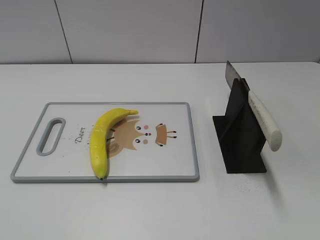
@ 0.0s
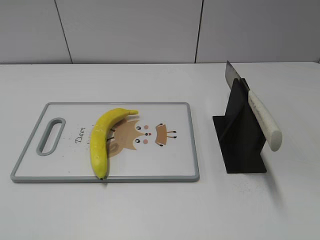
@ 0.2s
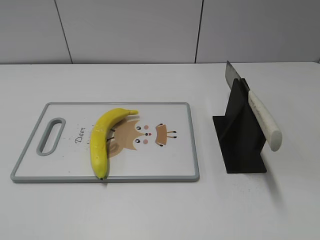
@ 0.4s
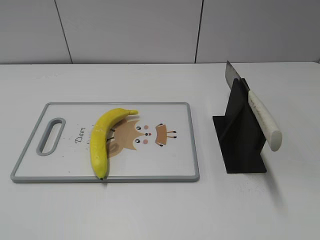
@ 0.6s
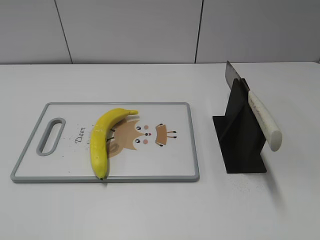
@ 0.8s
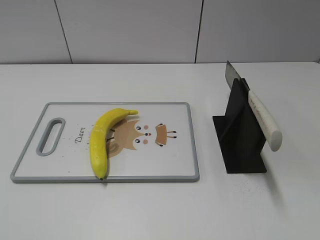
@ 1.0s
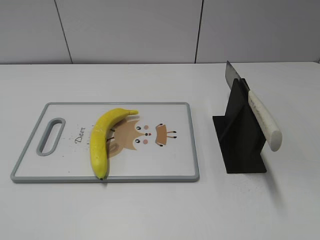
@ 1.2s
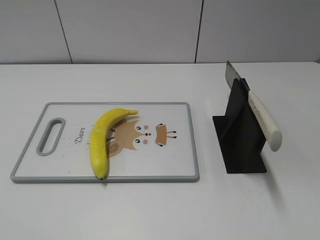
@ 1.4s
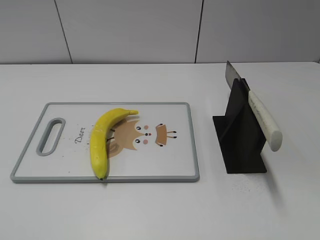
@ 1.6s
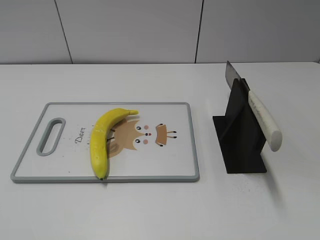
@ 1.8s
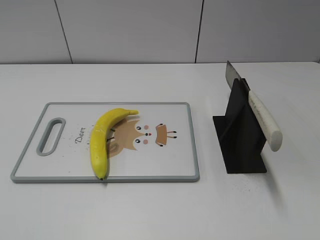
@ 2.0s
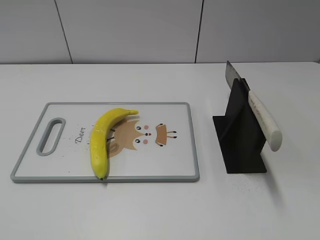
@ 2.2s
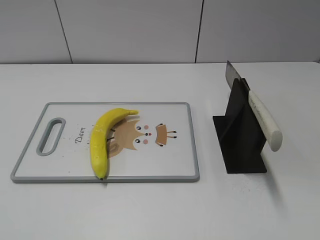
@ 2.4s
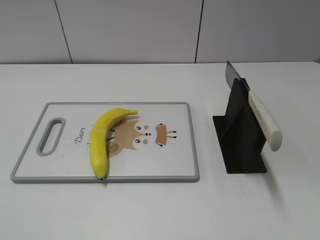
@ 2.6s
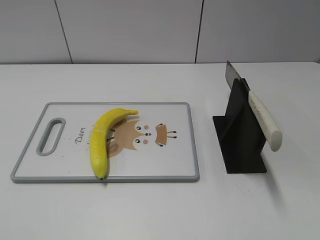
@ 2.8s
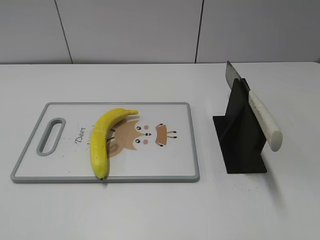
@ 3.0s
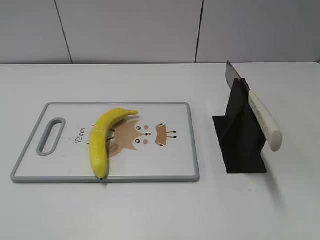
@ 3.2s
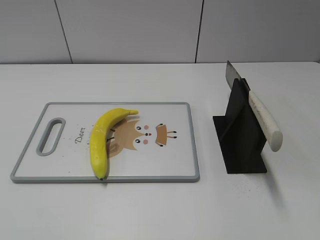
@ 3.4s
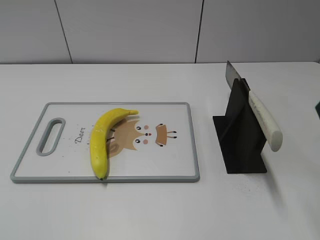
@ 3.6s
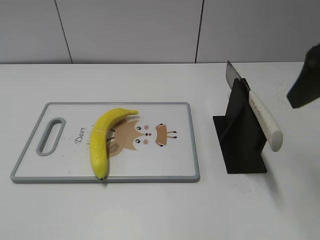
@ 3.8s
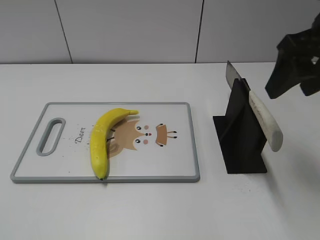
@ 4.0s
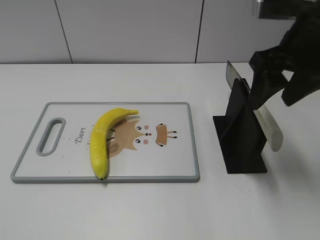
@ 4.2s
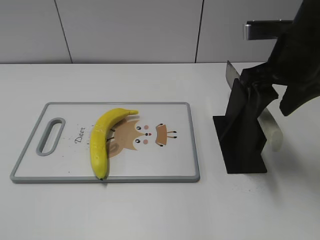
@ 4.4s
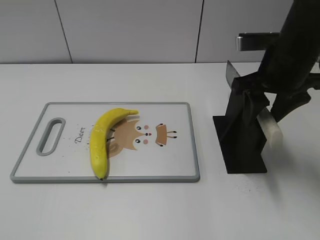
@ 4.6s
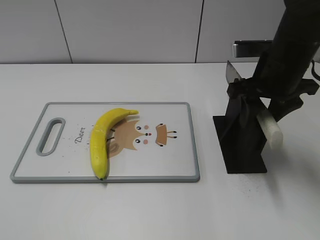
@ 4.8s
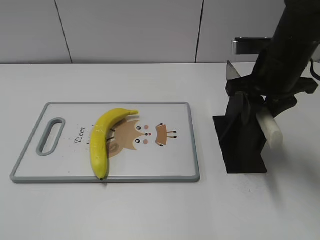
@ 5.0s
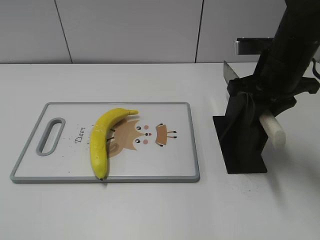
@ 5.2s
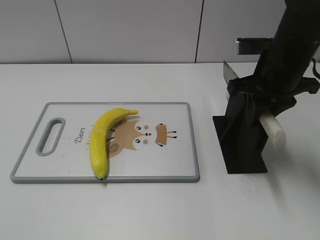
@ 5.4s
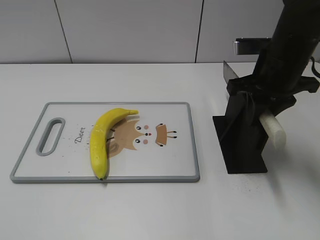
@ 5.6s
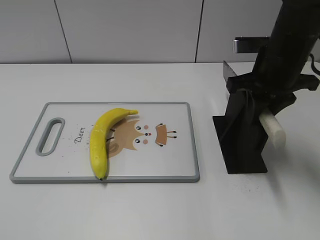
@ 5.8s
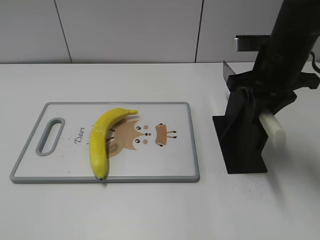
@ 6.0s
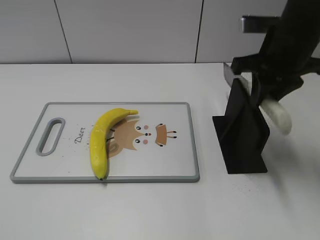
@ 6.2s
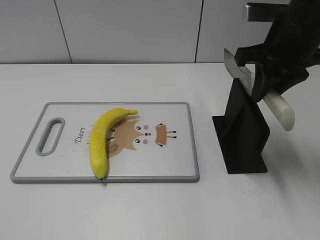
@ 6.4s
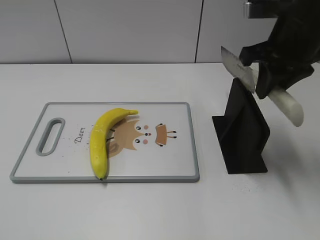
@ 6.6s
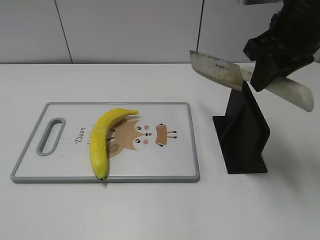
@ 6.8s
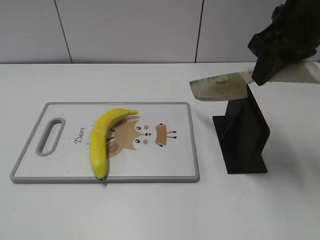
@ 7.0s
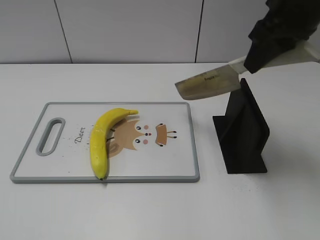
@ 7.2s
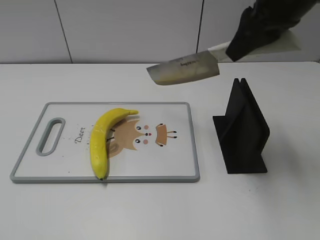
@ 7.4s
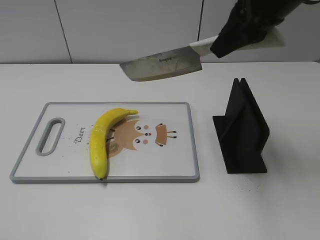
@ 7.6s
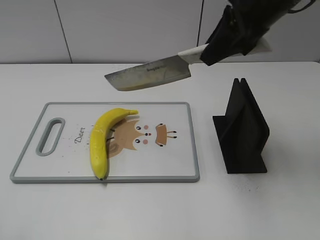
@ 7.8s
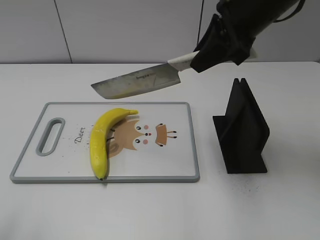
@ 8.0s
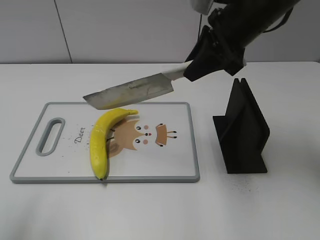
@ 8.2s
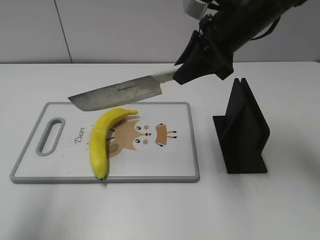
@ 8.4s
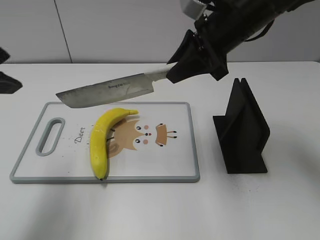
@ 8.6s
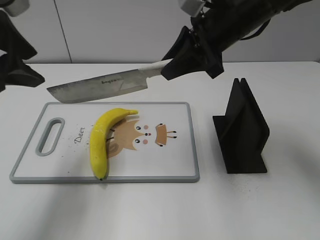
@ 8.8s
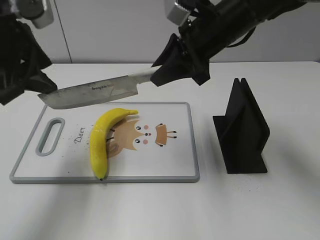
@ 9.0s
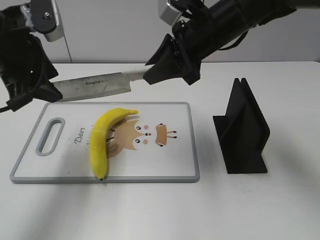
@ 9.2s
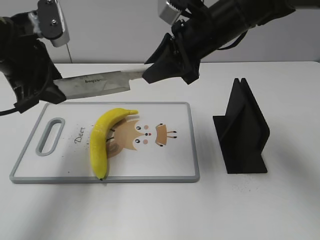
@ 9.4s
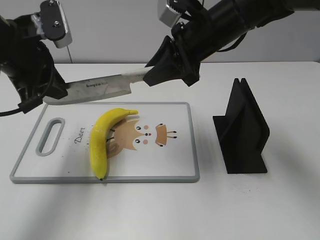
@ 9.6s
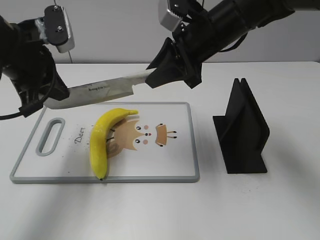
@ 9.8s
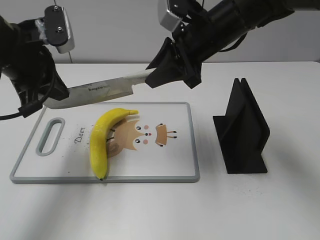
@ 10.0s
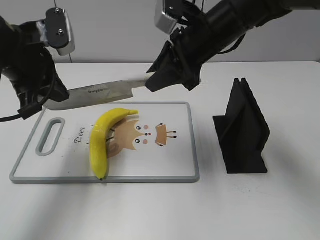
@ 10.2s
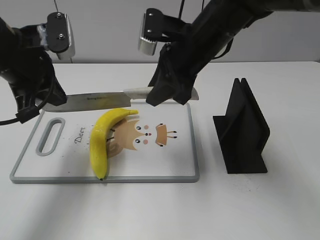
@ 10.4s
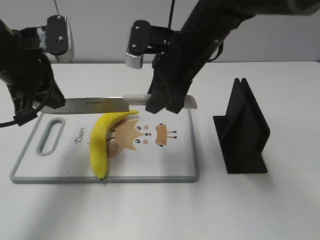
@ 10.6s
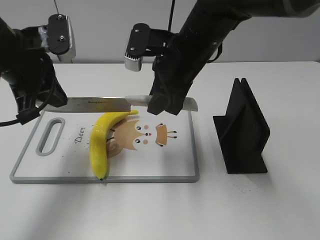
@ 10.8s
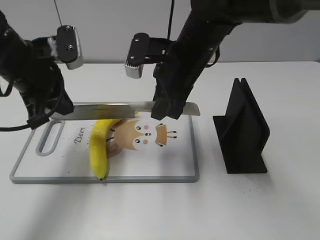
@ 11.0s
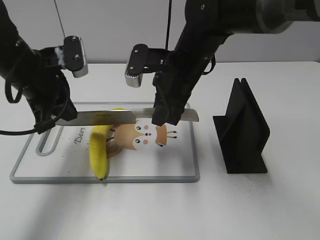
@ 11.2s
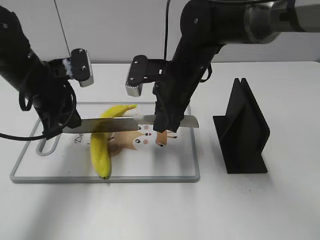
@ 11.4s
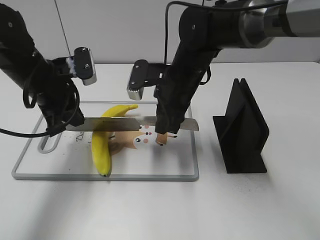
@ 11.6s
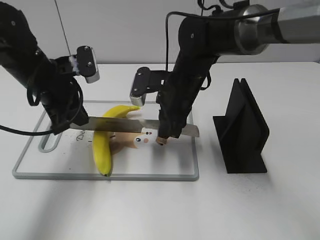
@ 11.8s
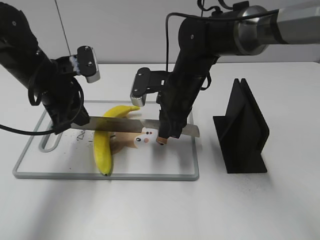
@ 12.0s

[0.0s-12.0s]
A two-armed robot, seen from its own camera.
Task of the whole recording: cut plastic banana.
Step, 0.0s to 6.2s: Grab the knife handle with your right hand.
3.0s to 4.4s: The right gripper travels forward and to the left by roughly 25 cm.
4.4s to 6.0s: The right gripper closes its fingers.
6.0s to 7.6s: The left gripper changes place by roughly 5 cm. Meanwhile the right gripper goes roughly 10 cm upward.
7.6s to 9.0s: The left gripper moves forward, some 25 cm. The right gripper goes some 10 cm downward and to the left.
9.0s to 10.4s: The left gripper moves about 5 cm, and closes up.
10.4s to 12.0s: The grippers both shift downward by about 10 cm.

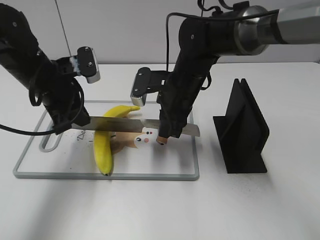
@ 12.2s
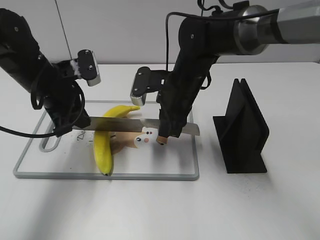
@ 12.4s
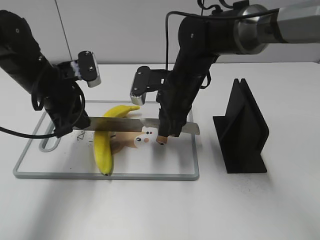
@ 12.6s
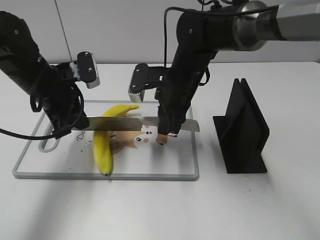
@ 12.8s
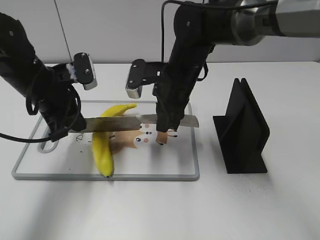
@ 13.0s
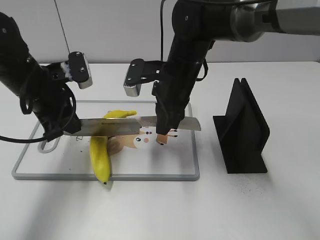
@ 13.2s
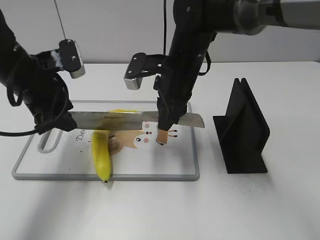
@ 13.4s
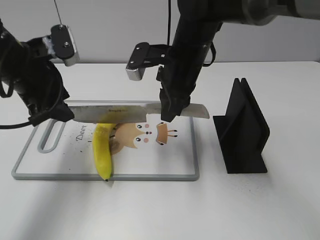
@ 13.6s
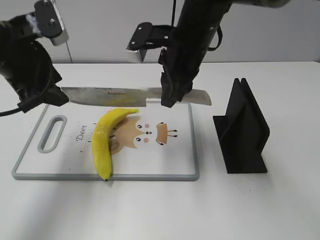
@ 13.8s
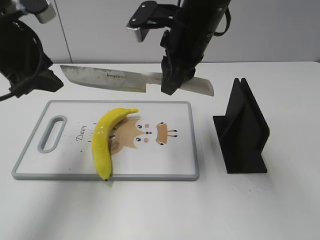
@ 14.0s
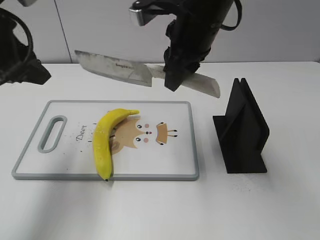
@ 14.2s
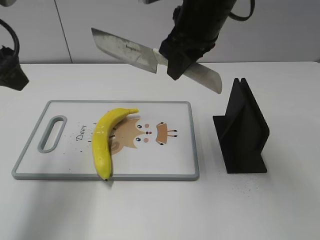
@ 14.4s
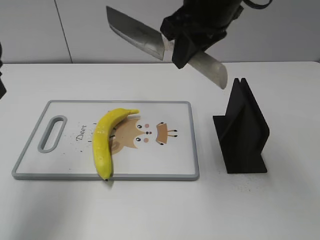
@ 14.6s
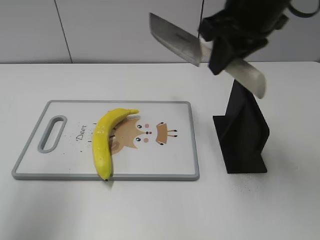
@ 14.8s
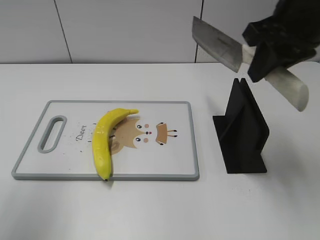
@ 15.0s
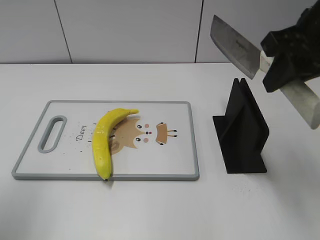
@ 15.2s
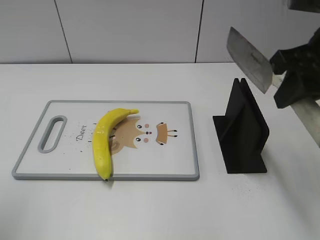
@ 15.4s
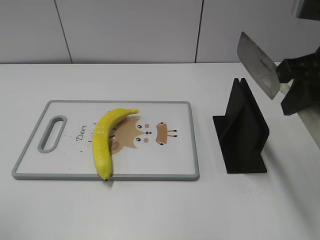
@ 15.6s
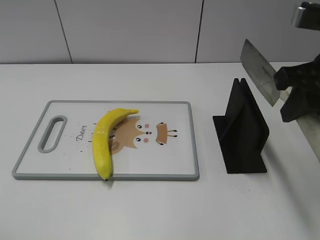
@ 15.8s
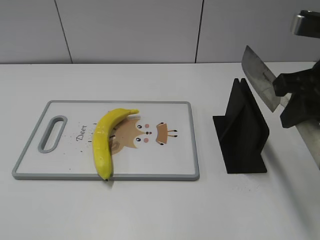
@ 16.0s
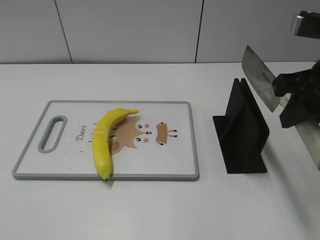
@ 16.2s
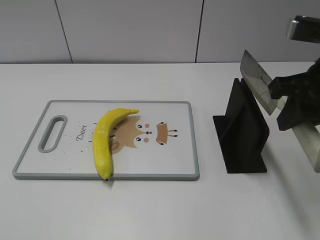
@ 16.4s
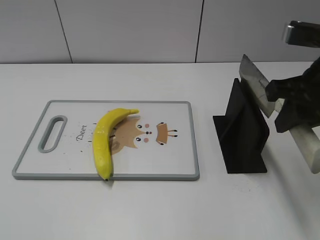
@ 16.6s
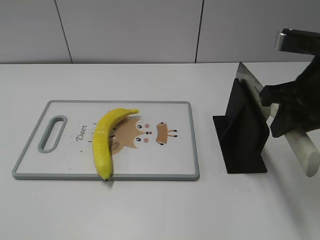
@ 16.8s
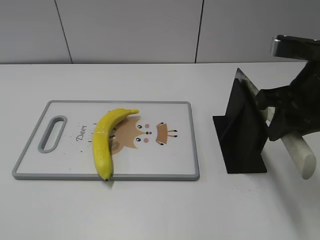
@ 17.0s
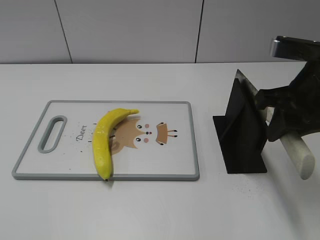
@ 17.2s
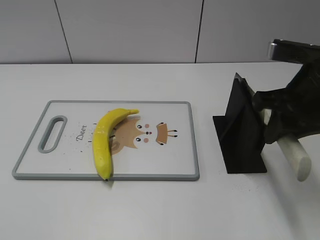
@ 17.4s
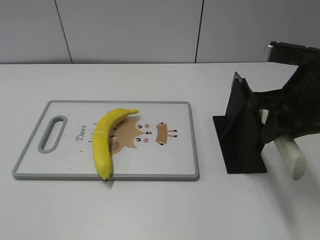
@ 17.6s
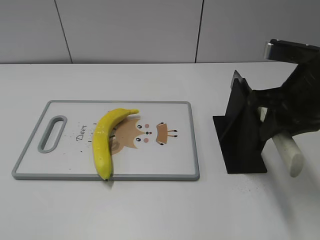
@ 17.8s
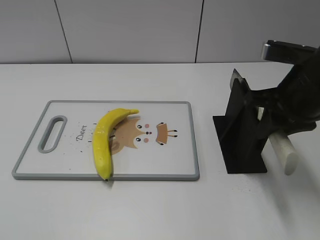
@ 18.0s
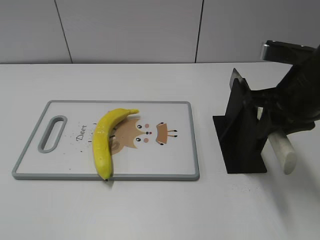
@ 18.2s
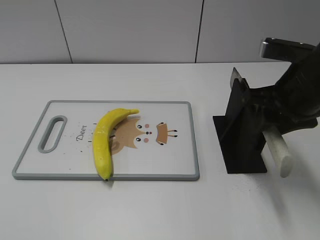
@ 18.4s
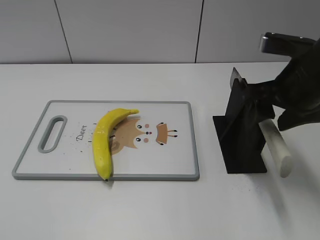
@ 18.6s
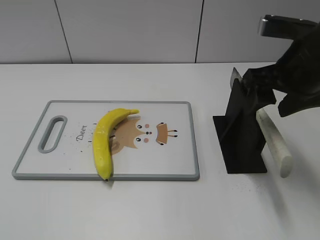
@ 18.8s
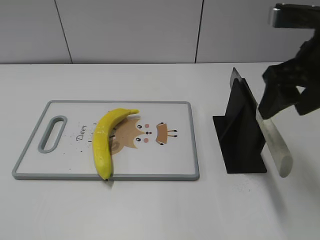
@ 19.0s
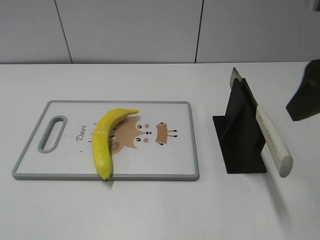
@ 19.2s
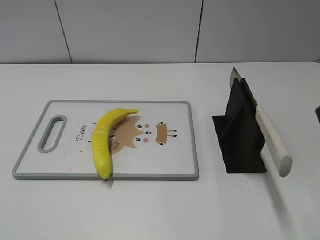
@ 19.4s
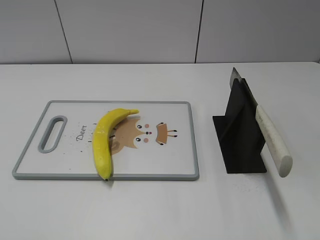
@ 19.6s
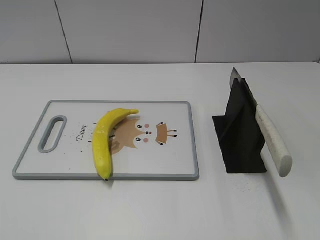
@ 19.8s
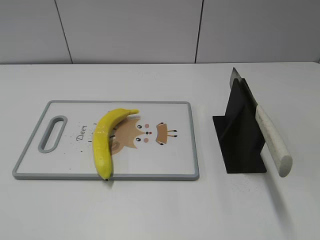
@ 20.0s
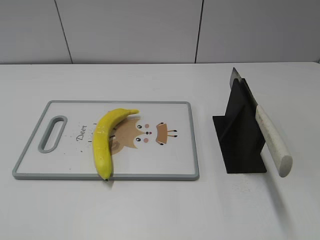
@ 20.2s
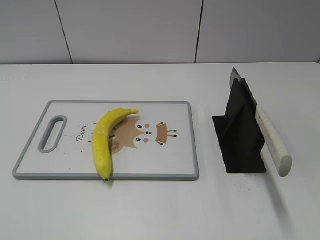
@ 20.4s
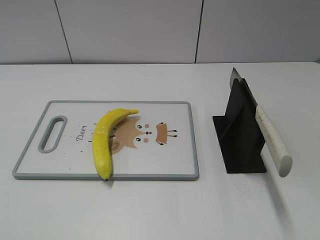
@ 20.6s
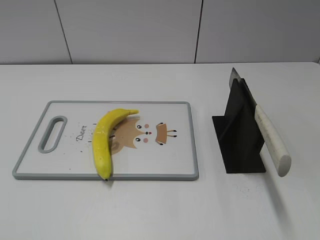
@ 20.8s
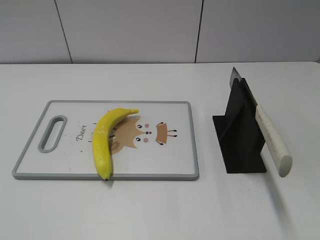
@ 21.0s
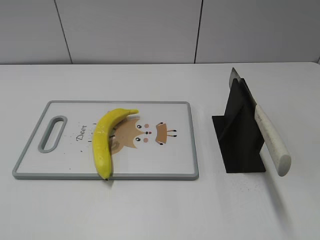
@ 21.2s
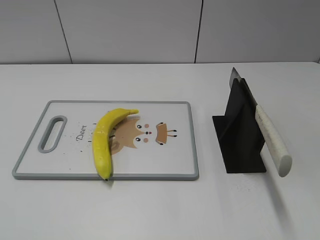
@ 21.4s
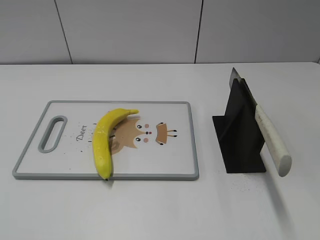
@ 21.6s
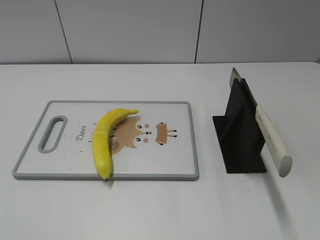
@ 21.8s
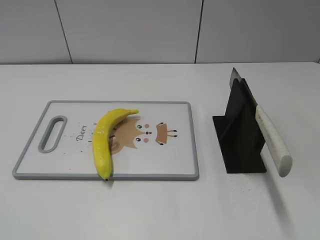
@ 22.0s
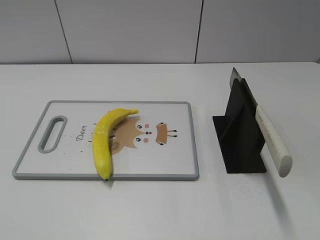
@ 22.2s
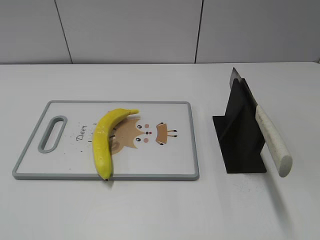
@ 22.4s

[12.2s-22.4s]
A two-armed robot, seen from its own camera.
Task of the whole recording: cut plastic banana.
Step, 12.4s to 16.4s: Cut the banana with your right hand.
Step, 16.8s to 17.2s: Lift the knife with your right hand.
Step, 17.6s to 22.4s: Place the knife on the storage rack with your right hand.
12.2s to 13.6s: The two grippers go approximately 5 cm upward. The left gripper opens up.
13.6s to 15.2s: The right gripper goes some 20 cm to the right, upward and backward. The left gripper travels backward, upward and to the left by about 20 cm.
15.2s to 16.6s: The right gripper travels downward by some 5 cm, while the left gripper is displaced backward by some 20 cm.
16.6s to 18.0s: The grippers stay close to where they were, moving slightly.
18.0s to 19.4s: The right gripper moves upward and backward, about 15 cm, and opens its fingers.
